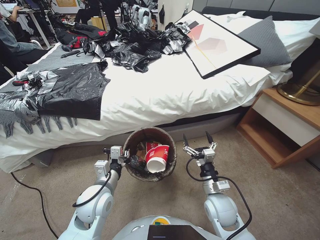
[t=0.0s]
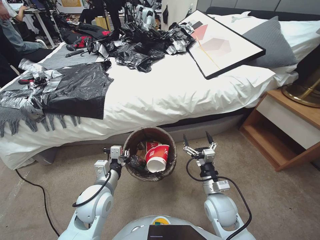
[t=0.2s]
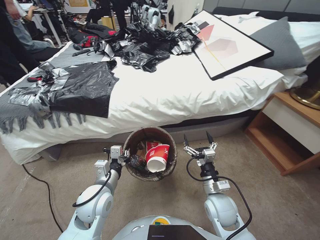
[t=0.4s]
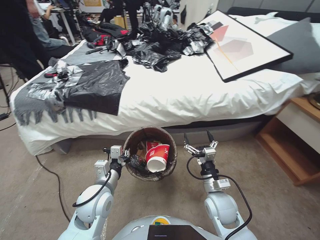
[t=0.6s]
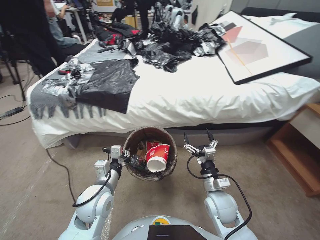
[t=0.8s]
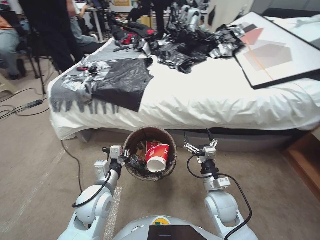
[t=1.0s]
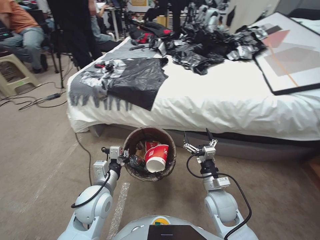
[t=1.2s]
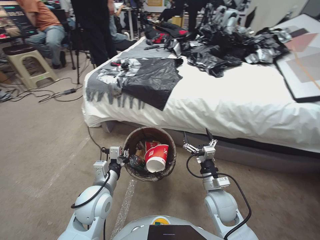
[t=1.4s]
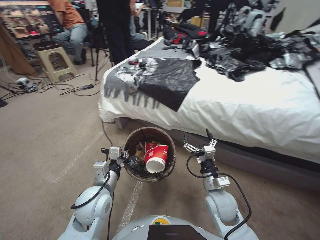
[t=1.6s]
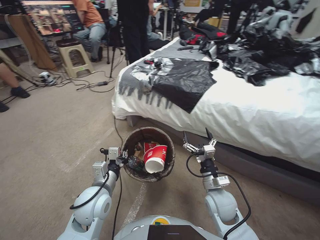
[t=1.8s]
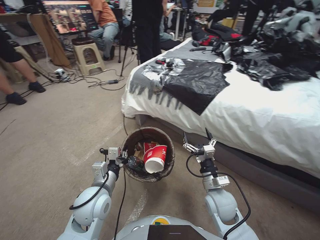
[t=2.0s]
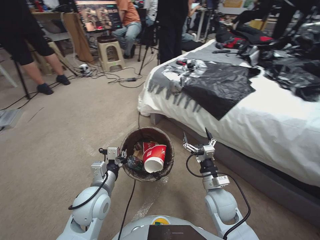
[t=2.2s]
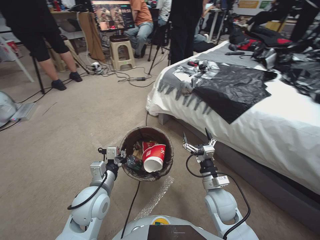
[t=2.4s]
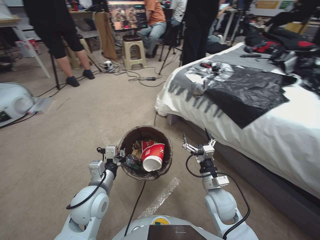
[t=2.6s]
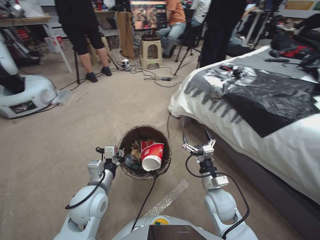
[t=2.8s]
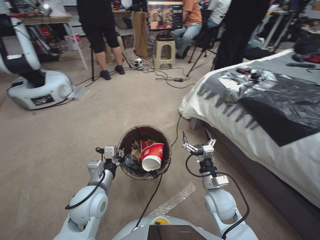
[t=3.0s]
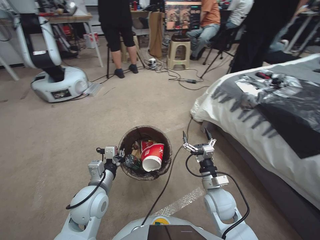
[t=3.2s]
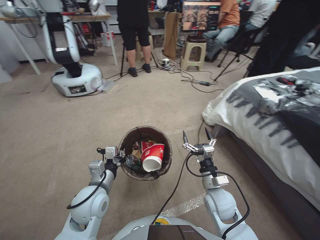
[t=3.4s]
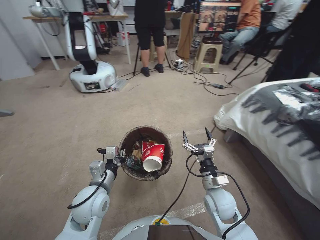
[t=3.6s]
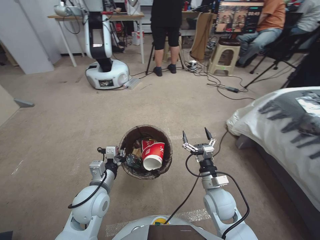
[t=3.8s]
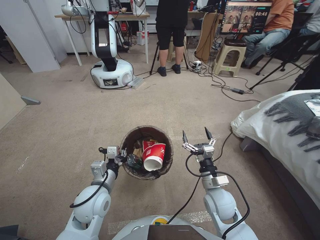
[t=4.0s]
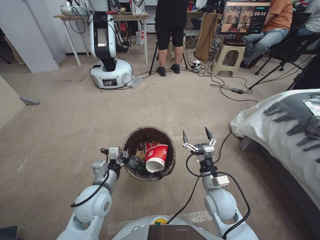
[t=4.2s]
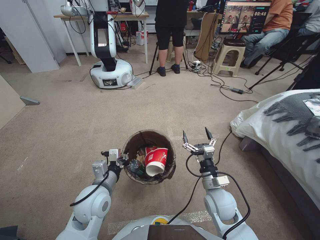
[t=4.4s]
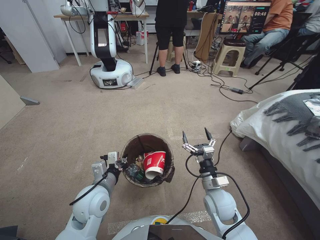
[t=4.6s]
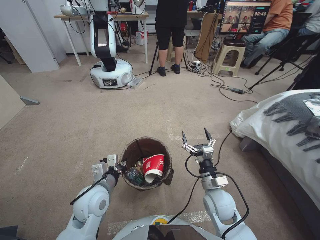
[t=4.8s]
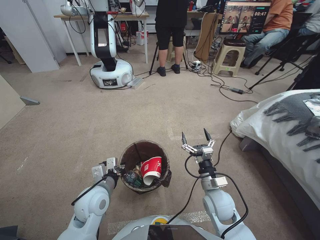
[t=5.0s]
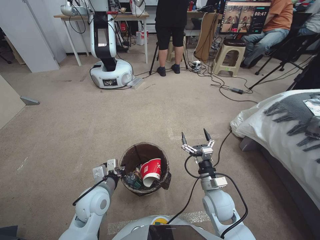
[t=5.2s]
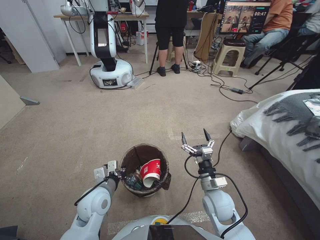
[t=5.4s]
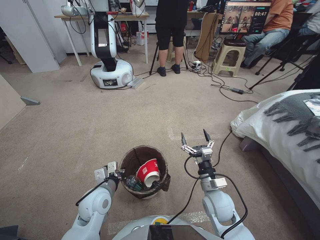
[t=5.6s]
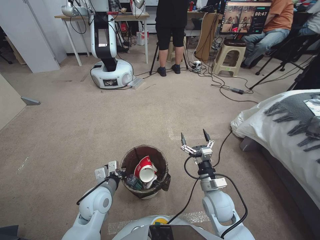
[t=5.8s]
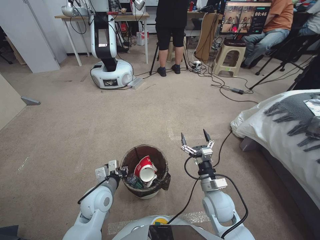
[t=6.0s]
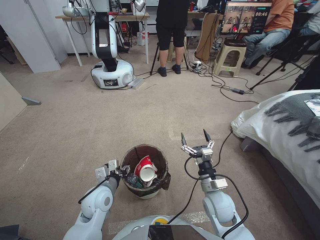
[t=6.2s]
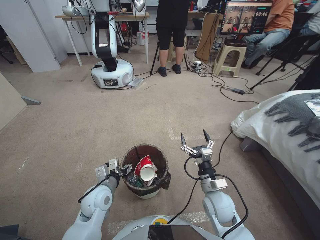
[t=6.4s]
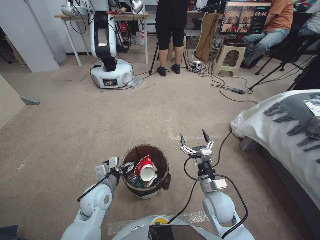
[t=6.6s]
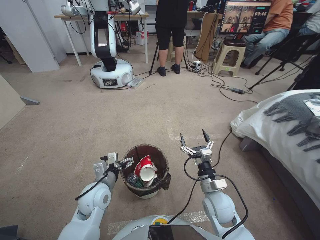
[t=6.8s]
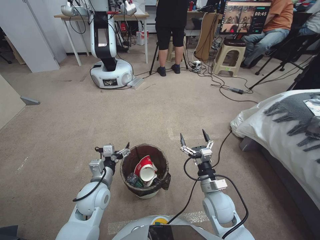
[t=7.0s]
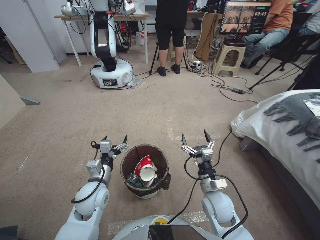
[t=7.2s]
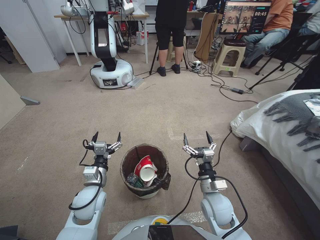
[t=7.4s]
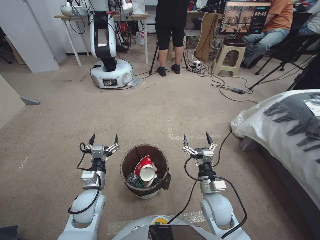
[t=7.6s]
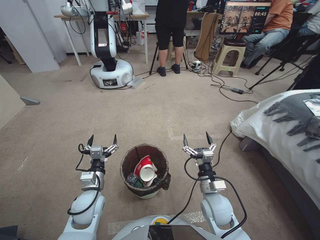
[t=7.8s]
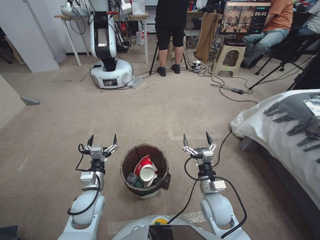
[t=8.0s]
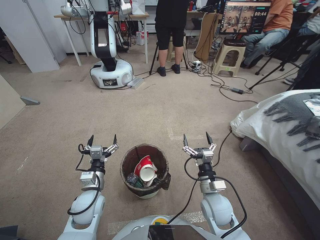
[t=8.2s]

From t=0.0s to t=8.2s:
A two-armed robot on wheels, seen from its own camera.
Task of the whole recording: Pick up the trash bin, then pick up the garbage from the floor and place it into the trash bin.
From t=5.0s to t=6.6s: The left gripper is displaced downward by some 5 cm, and opens its fingers.
